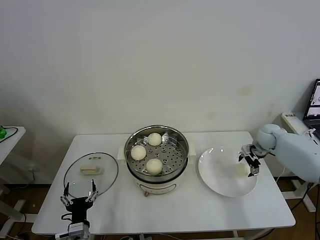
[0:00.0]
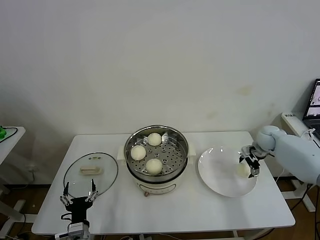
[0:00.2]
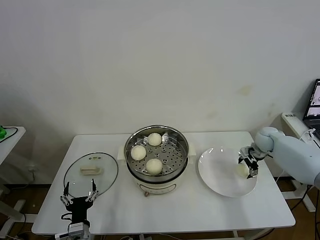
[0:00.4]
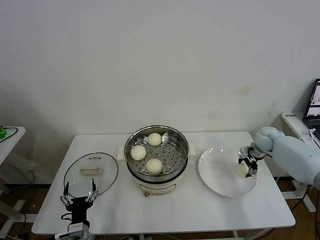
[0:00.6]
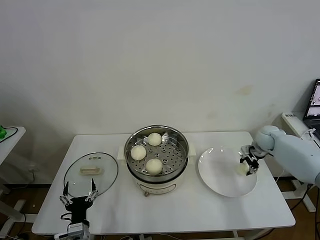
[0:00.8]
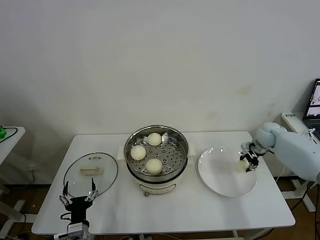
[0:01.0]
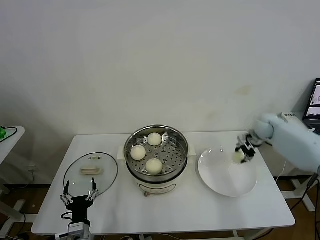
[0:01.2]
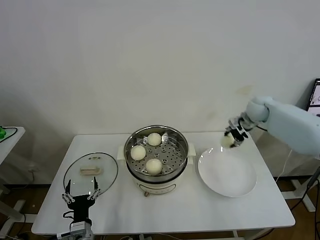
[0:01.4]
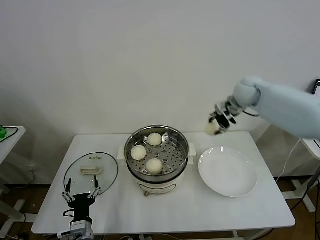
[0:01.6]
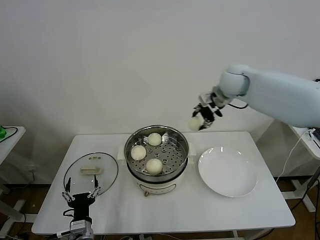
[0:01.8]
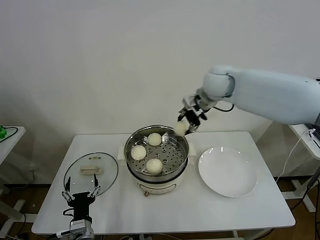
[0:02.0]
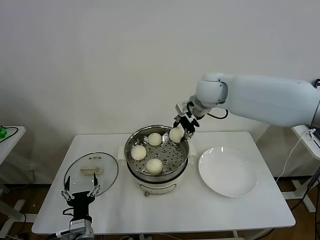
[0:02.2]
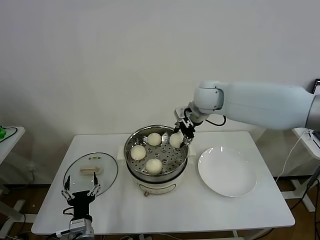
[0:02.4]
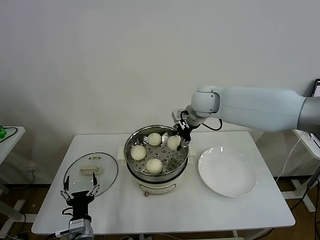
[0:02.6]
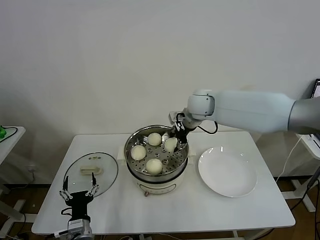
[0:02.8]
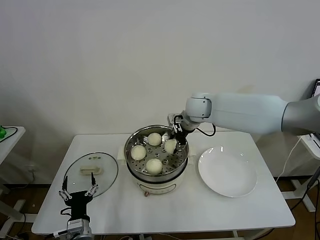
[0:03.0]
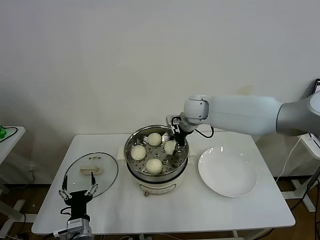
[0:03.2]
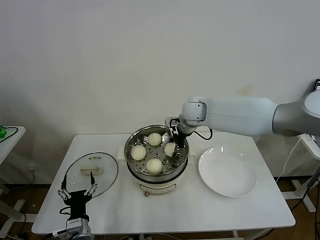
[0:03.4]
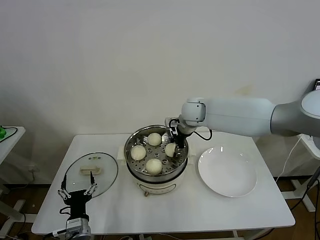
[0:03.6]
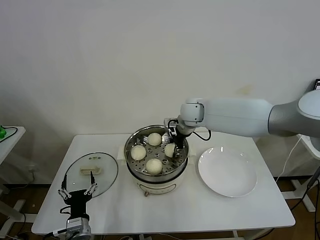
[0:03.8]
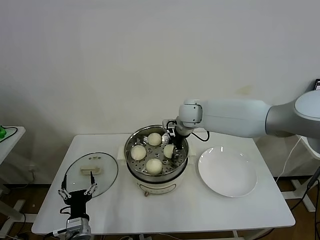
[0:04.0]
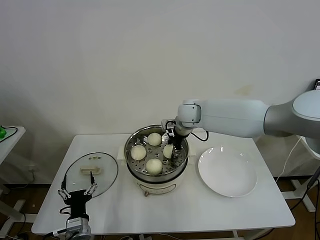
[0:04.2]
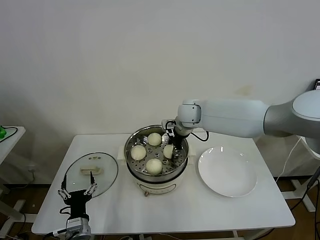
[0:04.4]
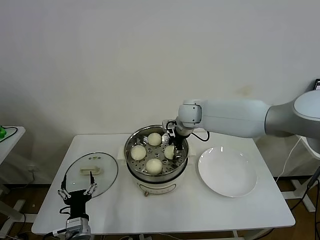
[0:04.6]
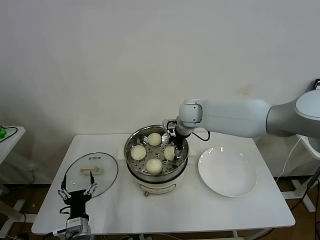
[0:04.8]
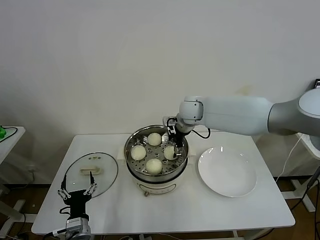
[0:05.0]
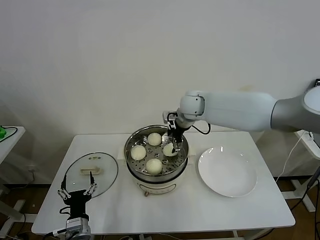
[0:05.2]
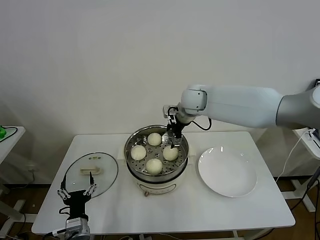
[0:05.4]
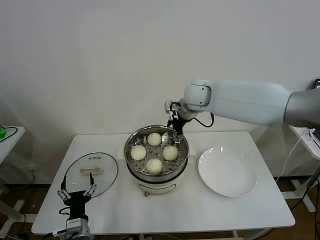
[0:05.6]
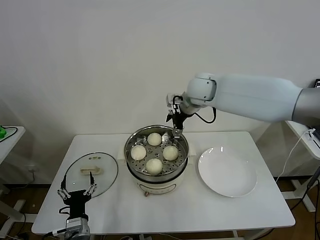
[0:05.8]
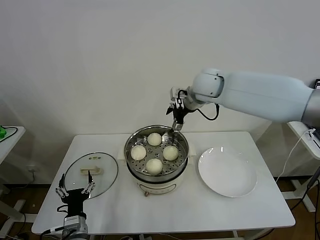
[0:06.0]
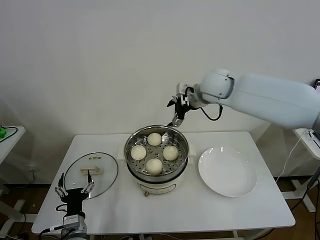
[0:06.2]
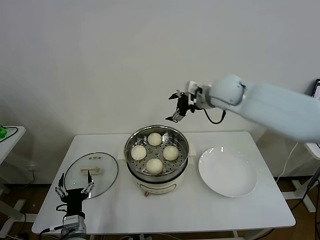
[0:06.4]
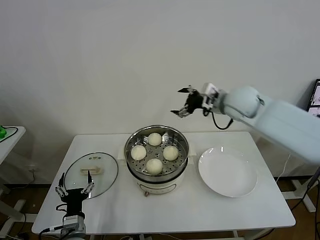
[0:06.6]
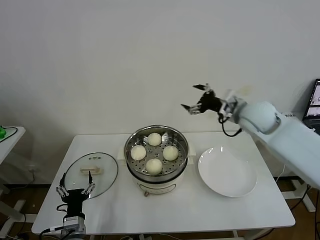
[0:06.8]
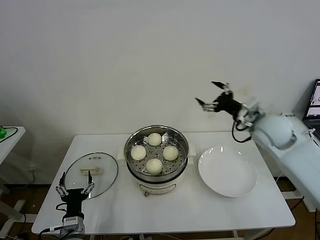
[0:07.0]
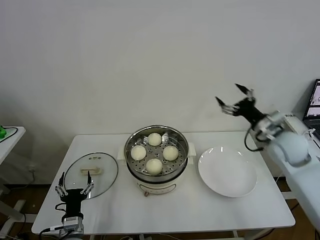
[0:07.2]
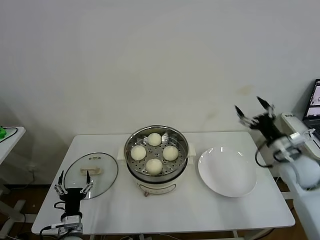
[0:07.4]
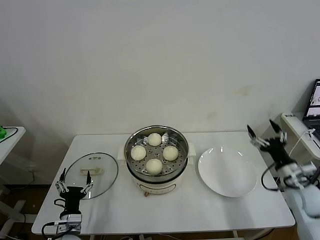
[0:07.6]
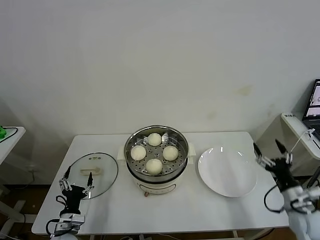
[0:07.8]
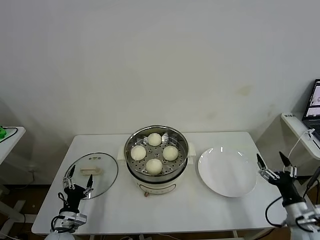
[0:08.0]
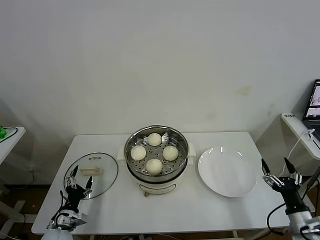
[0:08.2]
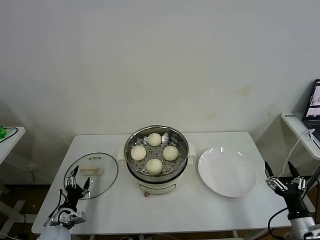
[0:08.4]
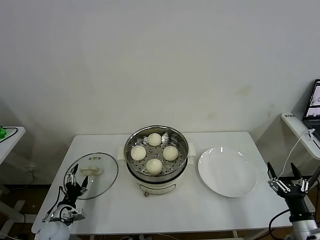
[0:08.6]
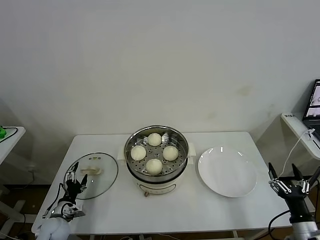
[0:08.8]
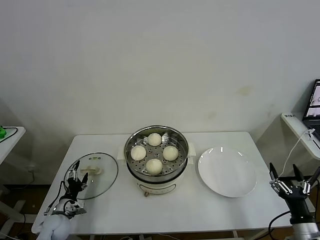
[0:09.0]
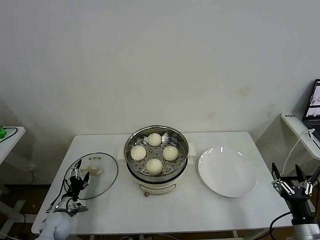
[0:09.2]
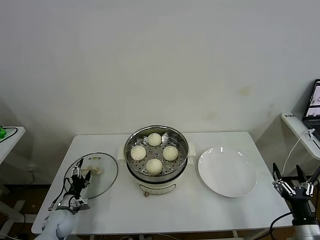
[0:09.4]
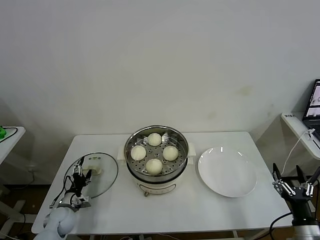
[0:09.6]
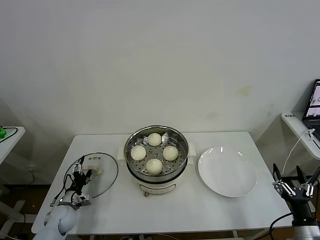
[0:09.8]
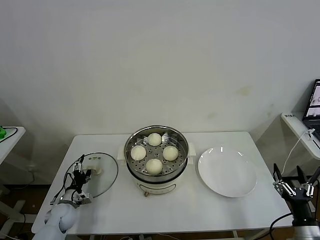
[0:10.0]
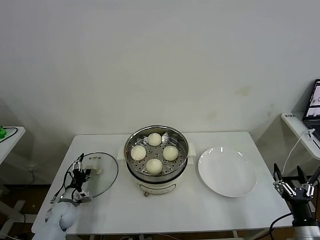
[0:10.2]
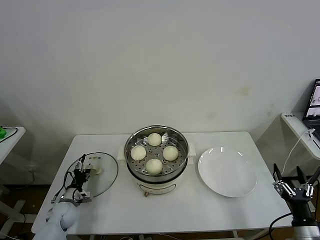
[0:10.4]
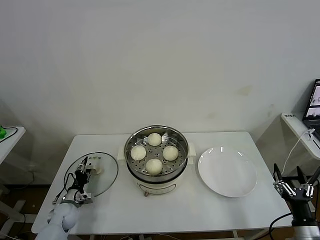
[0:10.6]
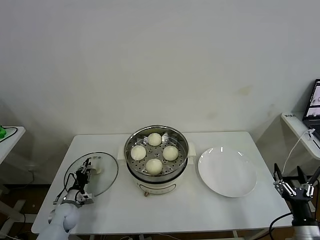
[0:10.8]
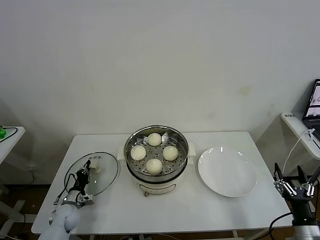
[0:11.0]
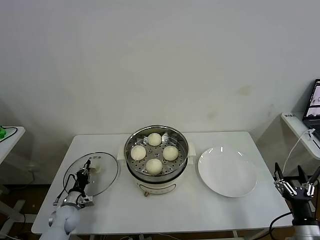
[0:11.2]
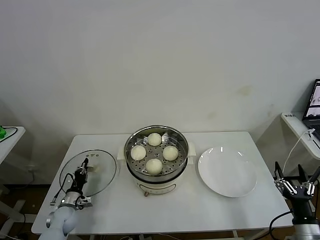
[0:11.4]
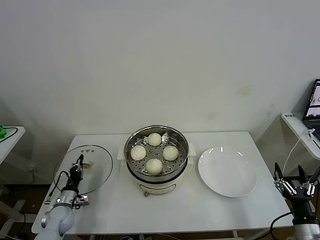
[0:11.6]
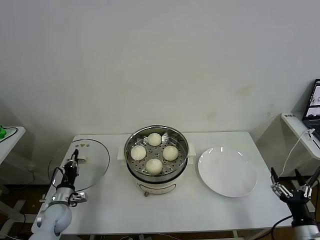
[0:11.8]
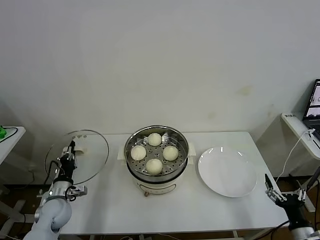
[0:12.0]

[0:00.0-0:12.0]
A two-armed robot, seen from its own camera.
Task of the whole recording: take steamed baozi put them in steamer then cover it.
Step, 0:01.0 to 0:04.8: Place the baozi on the steamer with right gripper.
Step, 0:05.0 to 0:11.2: Grasp the pot lid with left gripper.
0:00.0 to 0:01.6: The right gripper travels upward and to the left by roughly 25 cm, and closes its fingers.
0:01.6 to 0:03.0: The right gripper heads to the left and downward, covering roughly 15 cm.
0:03.0 to 0:04.4: There are only small adjustments of the grippers.
0:04.4 to 0:06.0: The right gripper heads upward, covering some 10 cm, and opens.
0:06.0 to 0:07.6: The left gripper moves some 5 cm; the right gripper heads to the right, backward and downward, covering approximately 50 cm.
0:07.6 to 0:09.0: The left gripper is displaced to the left and forward by some 10 cm, while the right gripper goes approximately 15 cm backward.
0:09.0 to 0:10.4: The left gripper moves forward, some 5 cm.
0:10.4 to 0:12.0: The left gripper moves upward, approximately 10 cm, and closes its fingers.

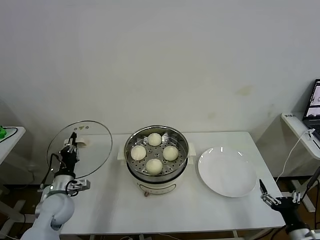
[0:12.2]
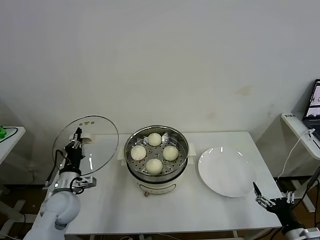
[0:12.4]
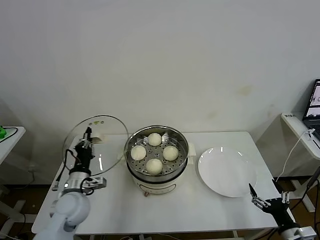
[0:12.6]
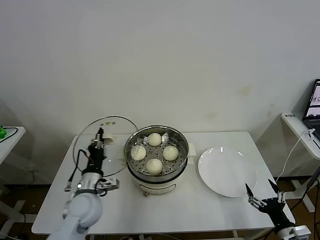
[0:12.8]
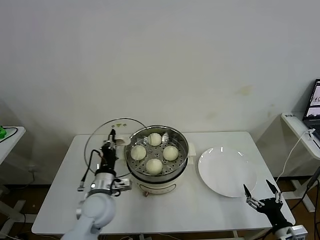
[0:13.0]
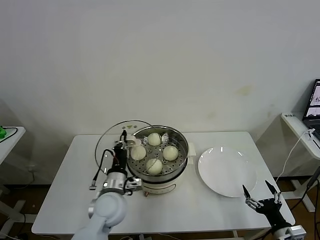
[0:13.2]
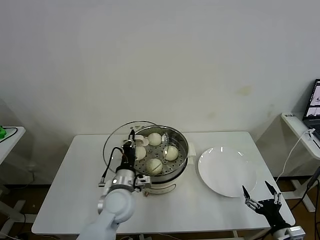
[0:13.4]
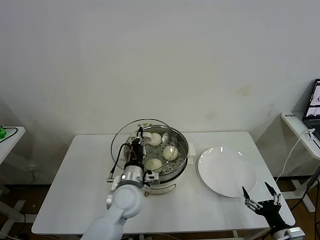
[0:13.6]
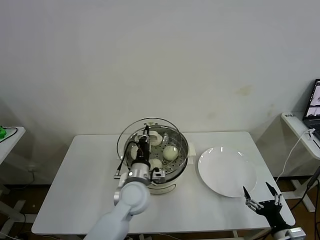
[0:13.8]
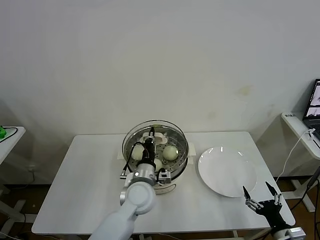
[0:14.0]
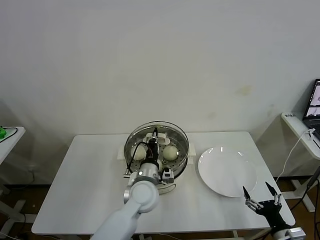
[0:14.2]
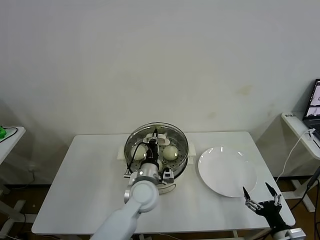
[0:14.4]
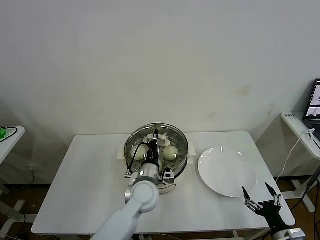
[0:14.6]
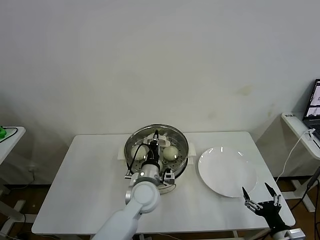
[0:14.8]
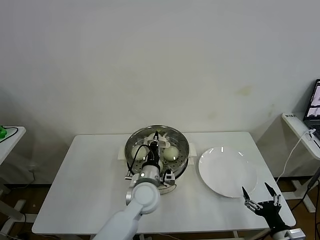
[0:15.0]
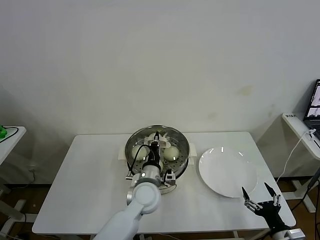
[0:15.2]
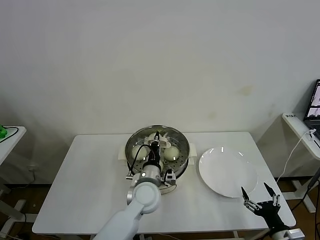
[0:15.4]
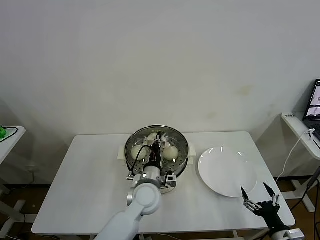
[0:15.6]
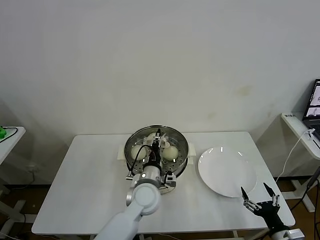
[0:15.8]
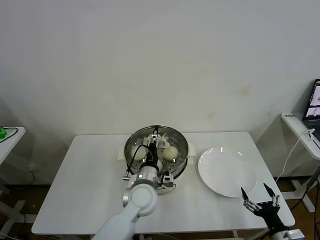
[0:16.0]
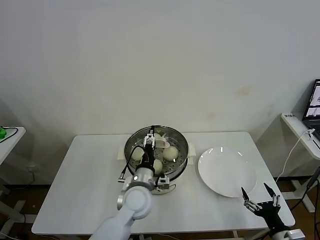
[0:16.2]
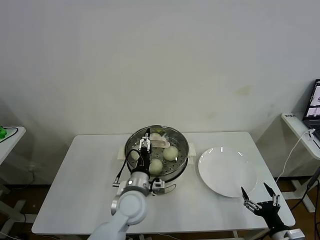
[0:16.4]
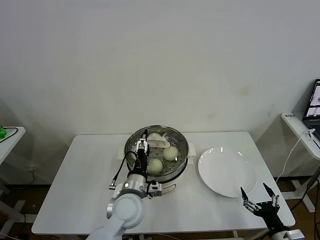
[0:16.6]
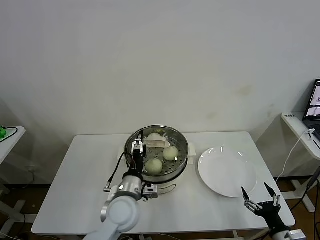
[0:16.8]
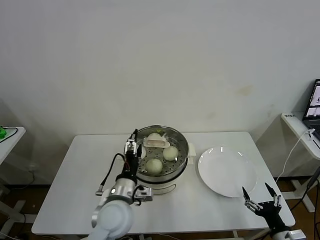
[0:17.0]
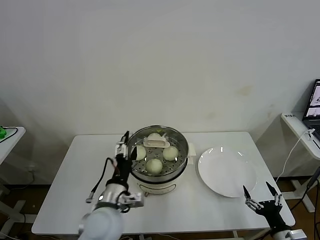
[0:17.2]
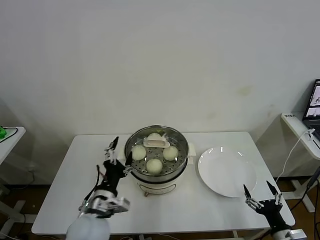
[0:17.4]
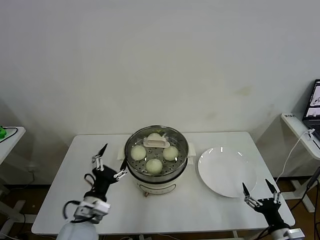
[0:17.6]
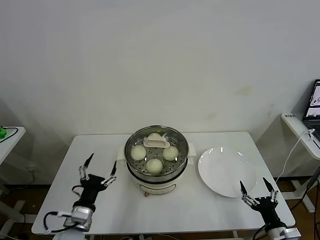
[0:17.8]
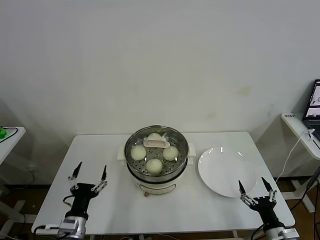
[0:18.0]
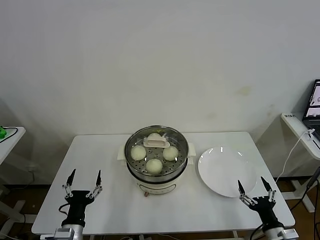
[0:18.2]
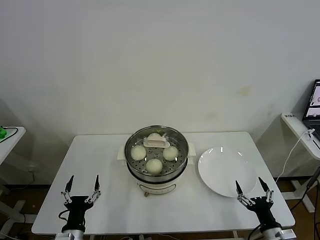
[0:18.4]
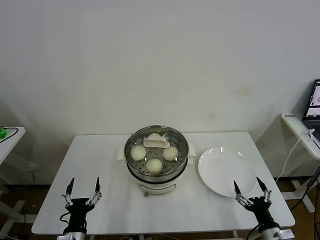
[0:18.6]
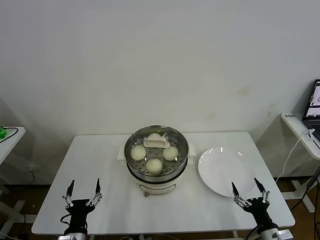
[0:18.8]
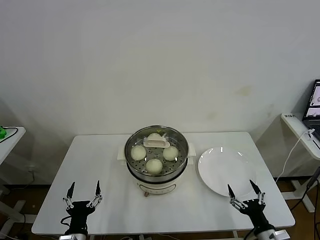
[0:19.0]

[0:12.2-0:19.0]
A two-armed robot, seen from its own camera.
Task of the whole recording: take steamed baozi put them in steamer then cover it.
Step, 0:12.2 to 0:16.0: Place the pot lid on the steamer with left gripper.
0:12.2 to 0:13.6: The left gripper shifts about 25 cm to the right.
0:13.6 to 0:15.0: The left gripper travels to the right by some 5 cm.
0:15.0 to 0:16.2: The left gripper opens.
0:16.2 to 0:17.6: The left gripper heads to the left and backward, covering approximately 15 cm.
0:17.6 to 0:19.0: The left gripper travels downward and backward by some 15 cm.
